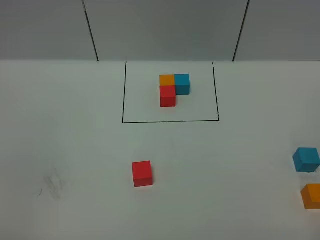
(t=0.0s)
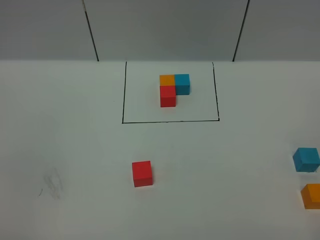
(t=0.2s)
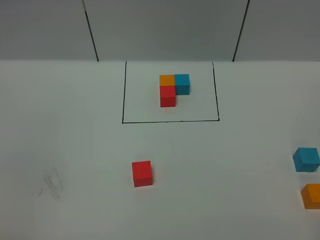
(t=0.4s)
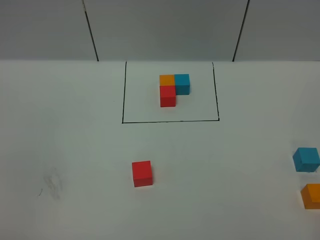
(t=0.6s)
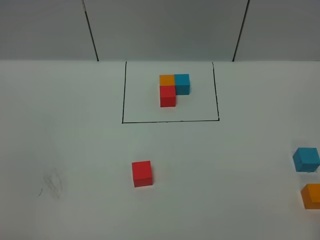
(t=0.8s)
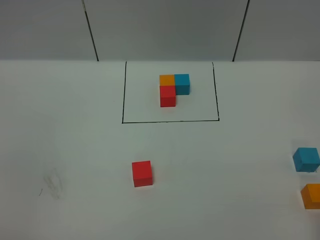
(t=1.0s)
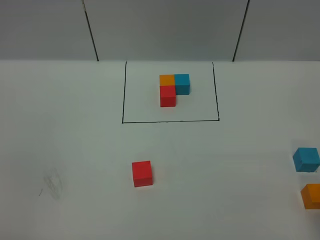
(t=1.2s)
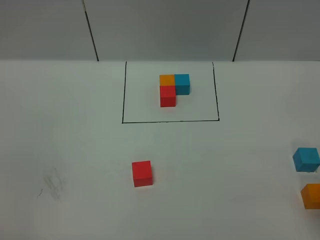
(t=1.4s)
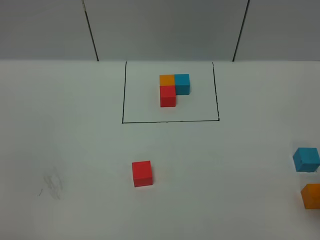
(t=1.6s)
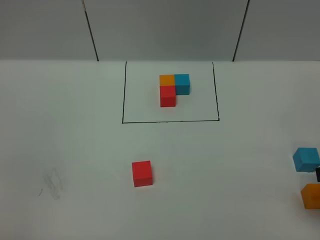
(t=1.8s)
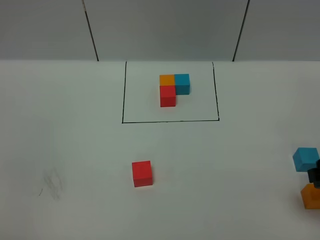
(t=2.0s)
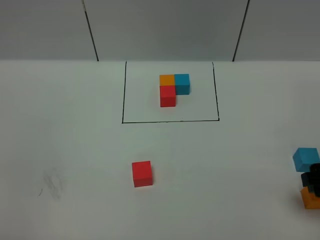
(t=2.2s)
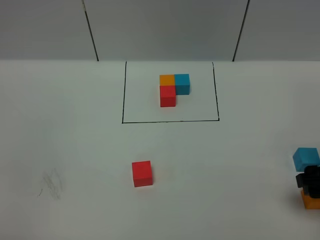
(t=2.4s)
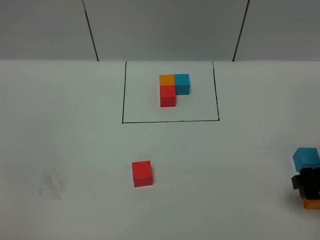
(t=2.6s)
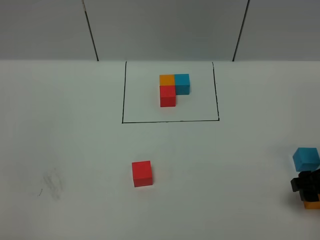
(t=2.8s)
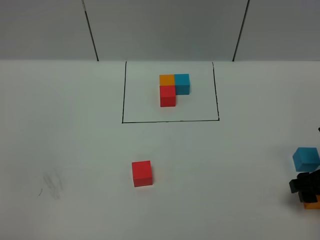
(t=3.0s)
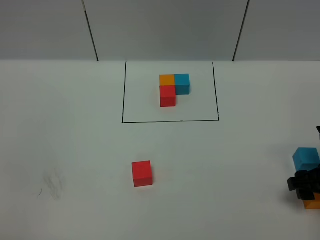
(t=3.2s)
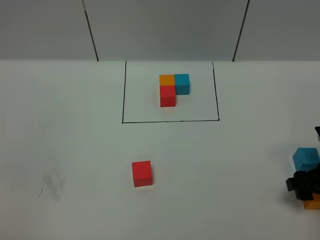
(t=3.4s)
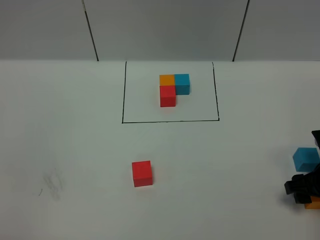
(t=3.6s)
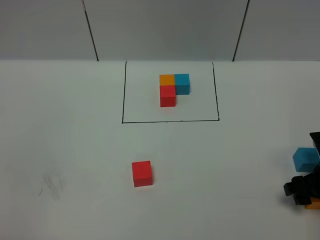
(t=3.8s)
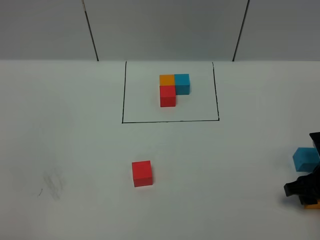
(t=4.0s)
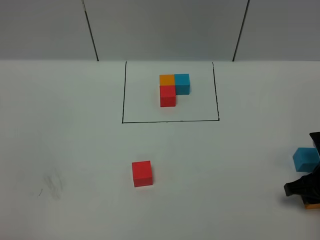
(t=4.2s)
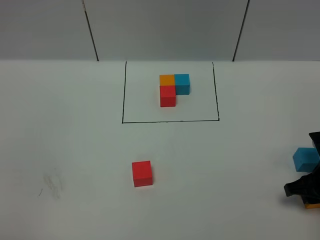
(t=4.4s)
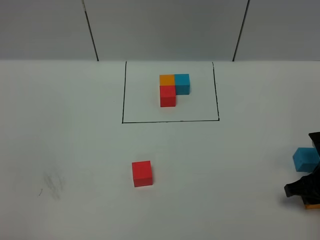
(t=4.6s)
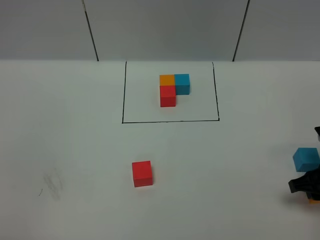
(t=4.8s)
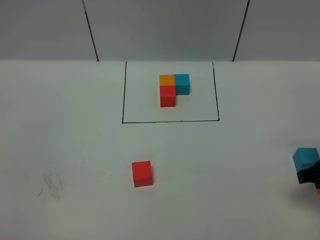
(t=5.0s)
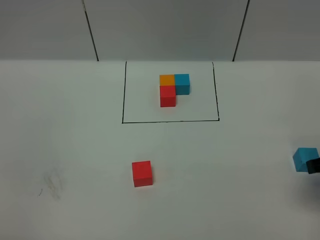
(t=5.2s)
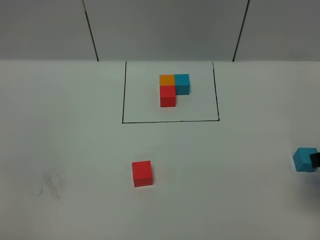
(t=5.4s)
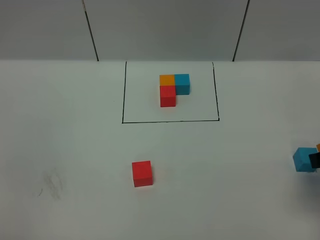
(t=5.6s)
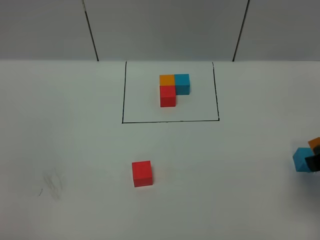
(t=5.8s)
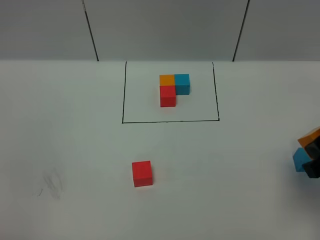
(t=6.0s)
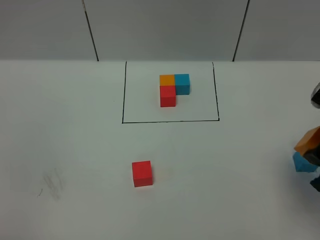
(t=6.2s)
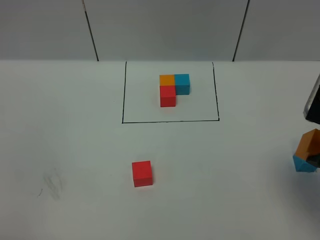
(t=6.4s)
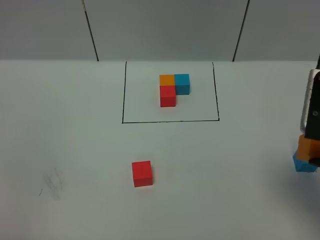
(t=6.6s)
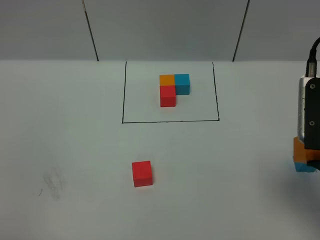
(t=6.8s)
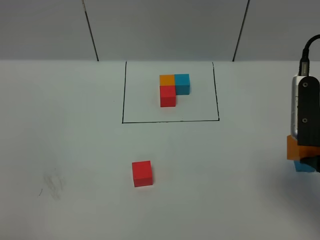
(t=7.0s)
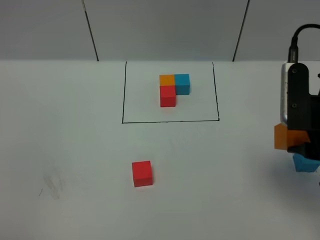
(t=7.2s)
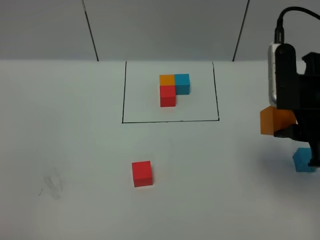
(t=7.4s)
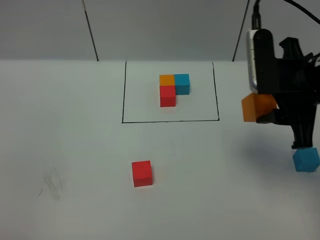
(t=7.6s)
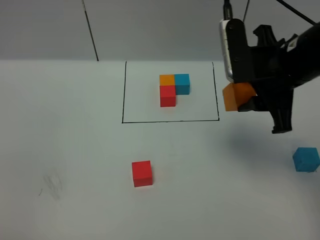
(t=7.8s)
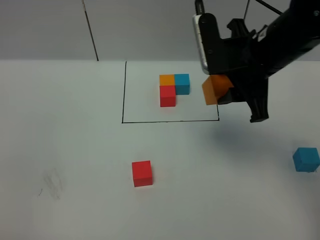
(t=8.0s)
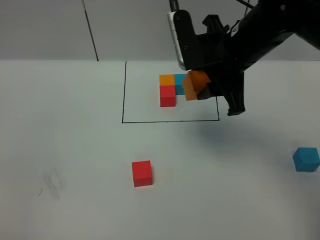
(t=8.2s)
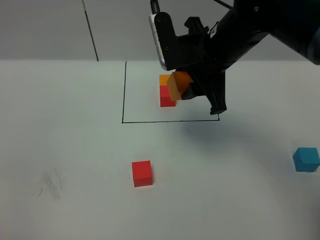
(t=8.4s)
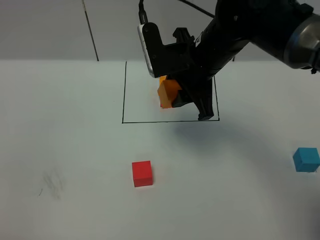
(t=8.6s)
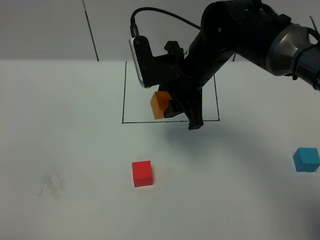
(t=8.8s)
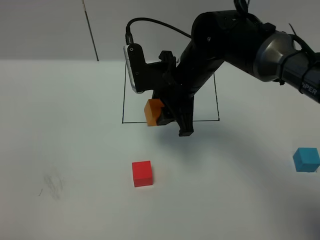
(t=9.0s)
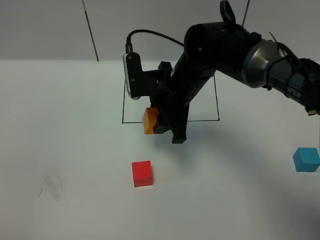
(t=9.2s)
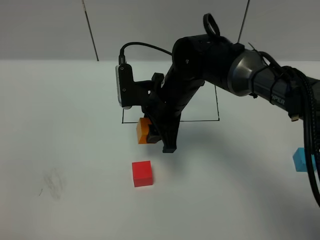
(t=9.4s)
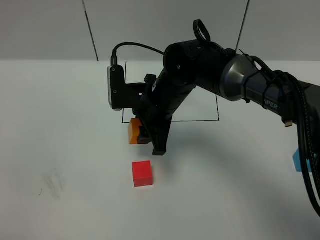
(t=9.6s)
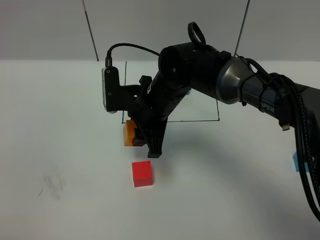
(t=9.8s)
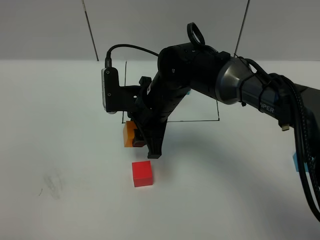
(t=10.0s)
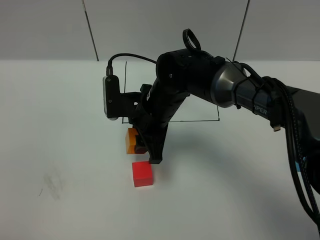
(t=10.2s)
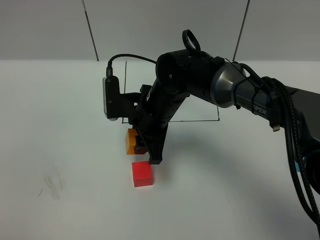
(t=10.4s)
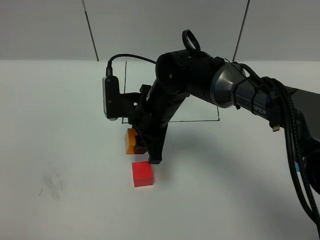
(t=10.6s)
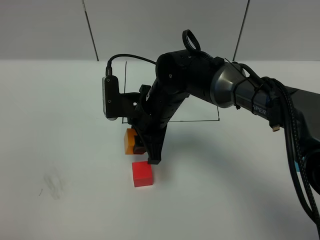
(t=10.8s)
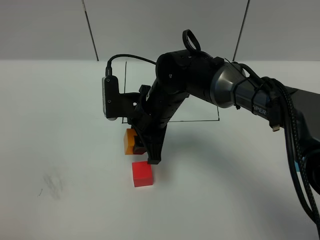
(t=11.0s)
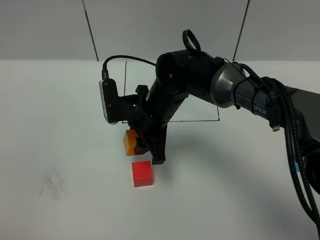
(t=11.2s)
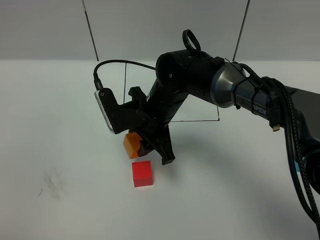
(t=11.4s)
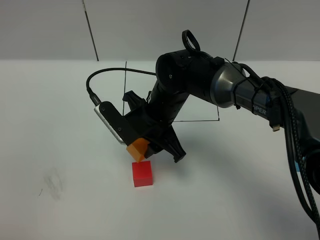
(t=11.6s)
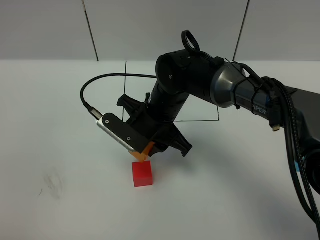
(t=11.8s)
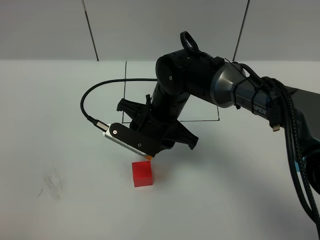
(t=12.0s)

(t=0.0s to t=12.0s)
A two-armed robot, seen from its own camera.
Task of the whole recording: According to the building block template in front, assemble the scattered blocks together.
t=1.6s - t=3.0s: The right gripper moves downward and forward, roughly 15 cm.
t=4.4s - t=6.0s: The right gripper is displaced upward by some 20 cm.
t=6.0s - t=7.6s: The right gripper shifts approximately 10 cm forward and to the left.
t=7.6s - t=9.0s: The right gripper moves to the left, forward and downward, some 20 cm.
t=9.0s - t=10.4s: The right gripper moves downward, roughly 5 cm.

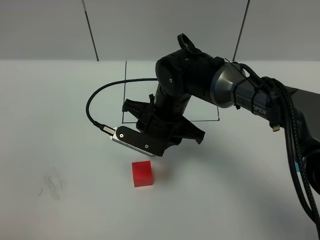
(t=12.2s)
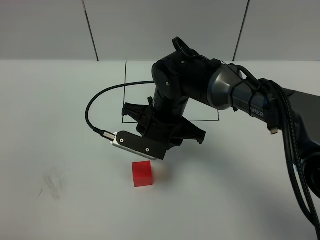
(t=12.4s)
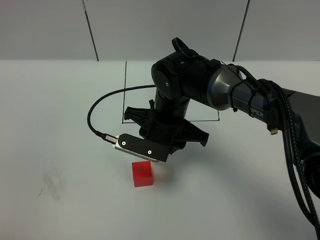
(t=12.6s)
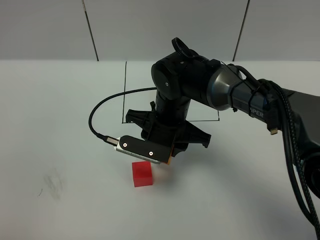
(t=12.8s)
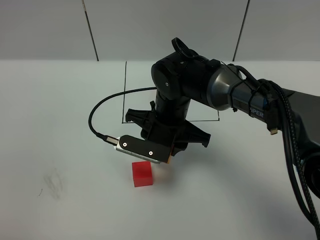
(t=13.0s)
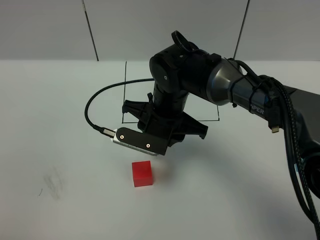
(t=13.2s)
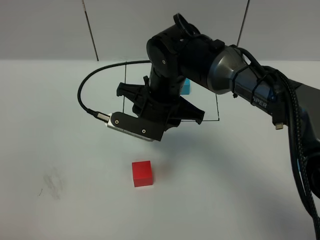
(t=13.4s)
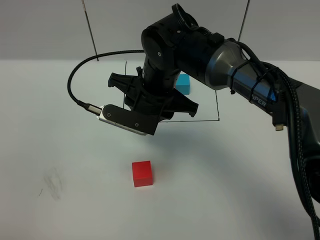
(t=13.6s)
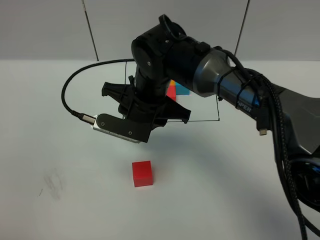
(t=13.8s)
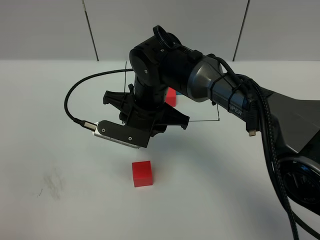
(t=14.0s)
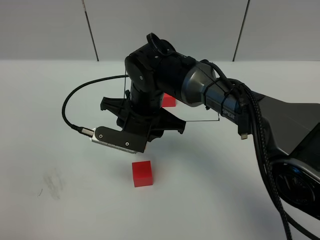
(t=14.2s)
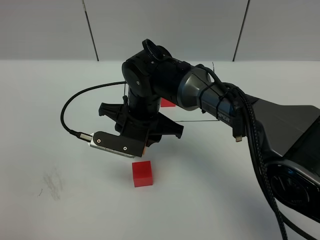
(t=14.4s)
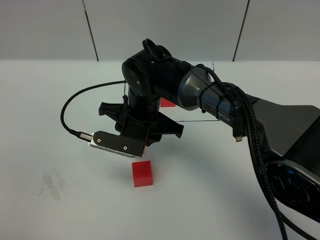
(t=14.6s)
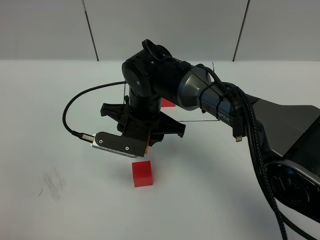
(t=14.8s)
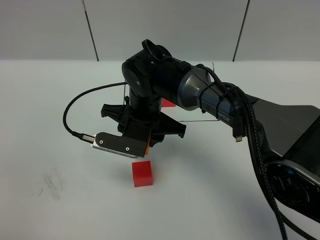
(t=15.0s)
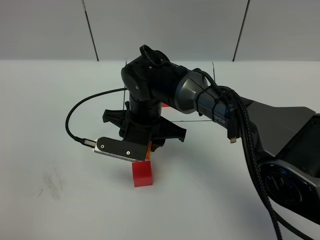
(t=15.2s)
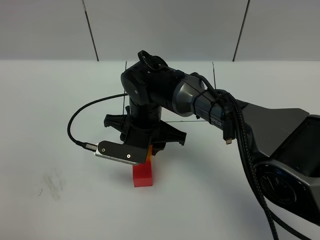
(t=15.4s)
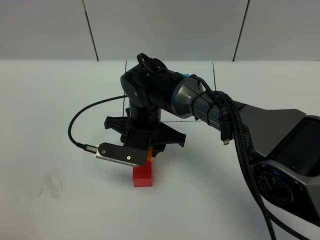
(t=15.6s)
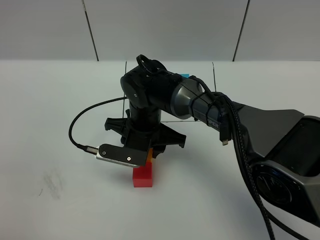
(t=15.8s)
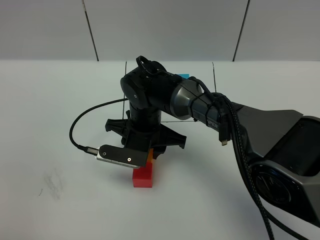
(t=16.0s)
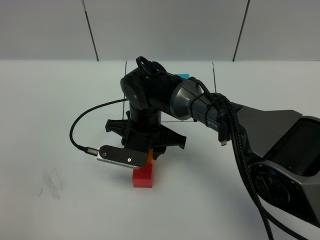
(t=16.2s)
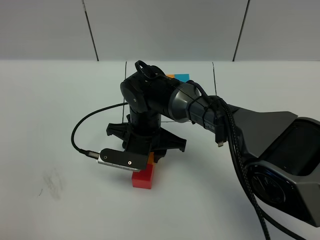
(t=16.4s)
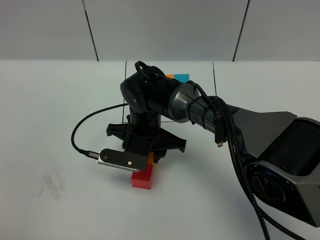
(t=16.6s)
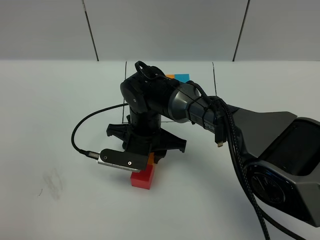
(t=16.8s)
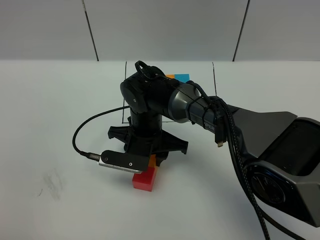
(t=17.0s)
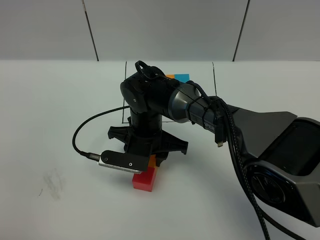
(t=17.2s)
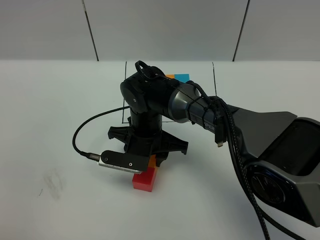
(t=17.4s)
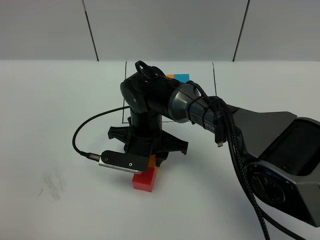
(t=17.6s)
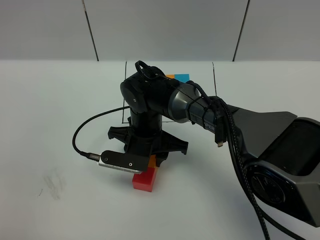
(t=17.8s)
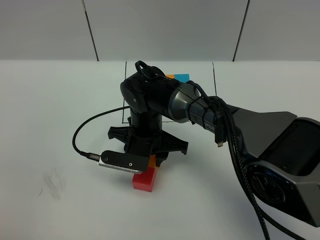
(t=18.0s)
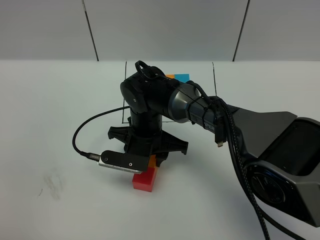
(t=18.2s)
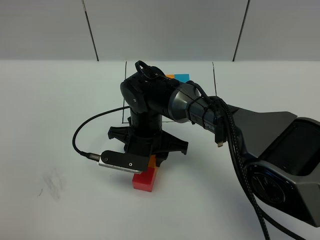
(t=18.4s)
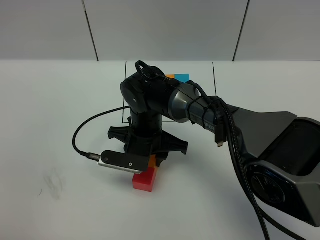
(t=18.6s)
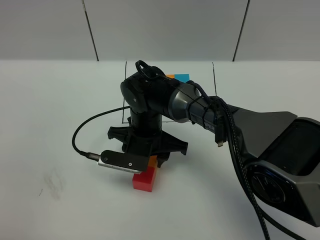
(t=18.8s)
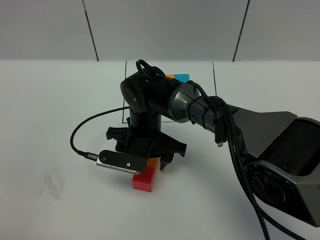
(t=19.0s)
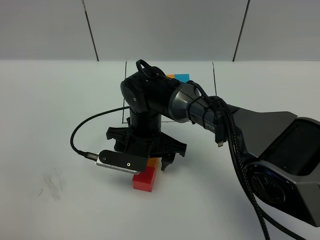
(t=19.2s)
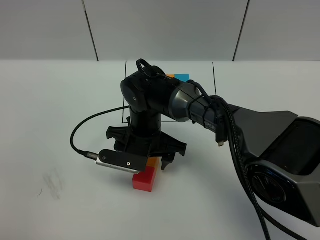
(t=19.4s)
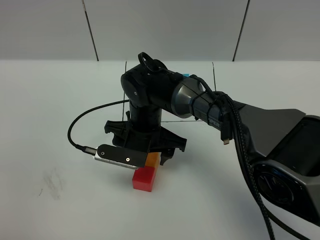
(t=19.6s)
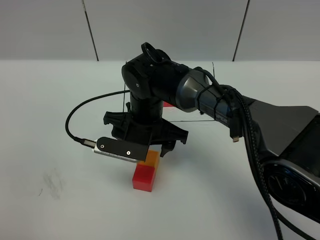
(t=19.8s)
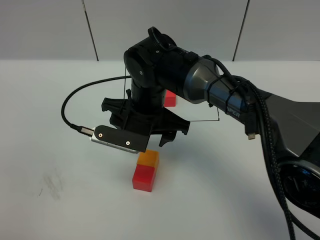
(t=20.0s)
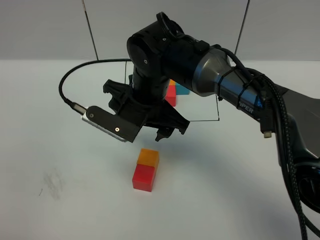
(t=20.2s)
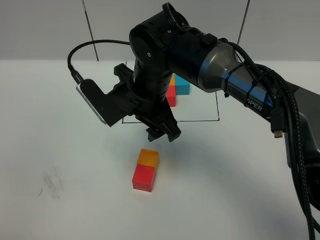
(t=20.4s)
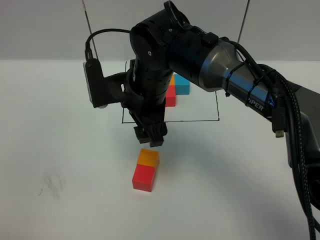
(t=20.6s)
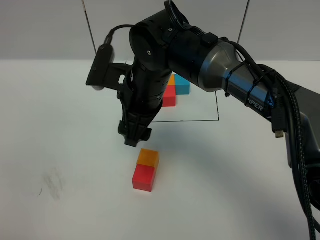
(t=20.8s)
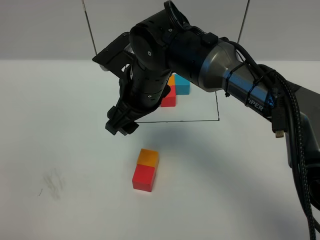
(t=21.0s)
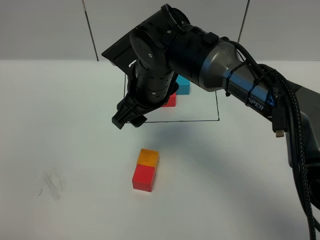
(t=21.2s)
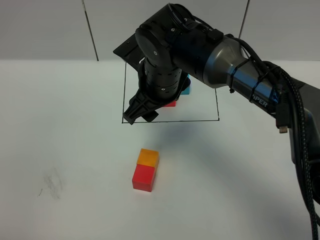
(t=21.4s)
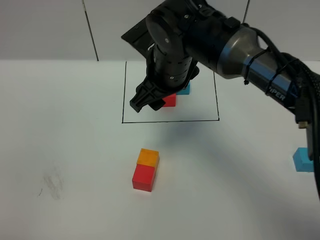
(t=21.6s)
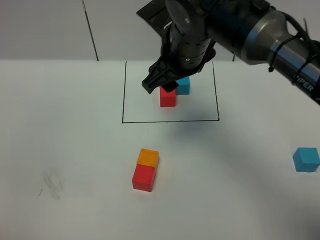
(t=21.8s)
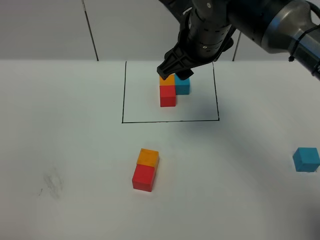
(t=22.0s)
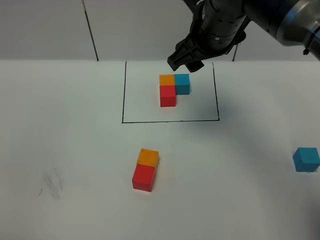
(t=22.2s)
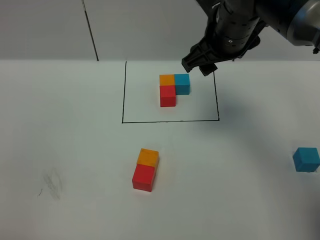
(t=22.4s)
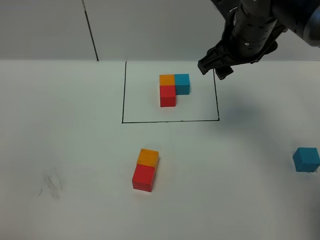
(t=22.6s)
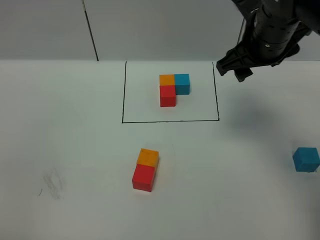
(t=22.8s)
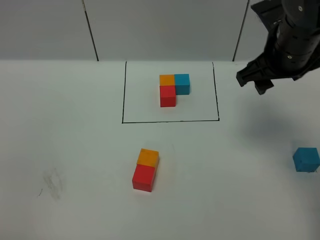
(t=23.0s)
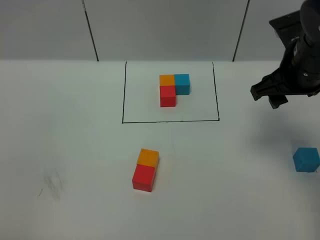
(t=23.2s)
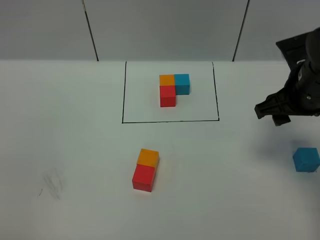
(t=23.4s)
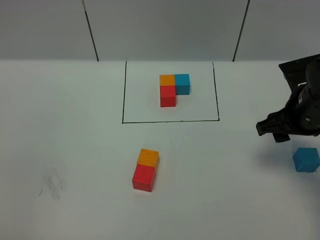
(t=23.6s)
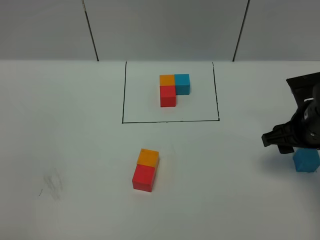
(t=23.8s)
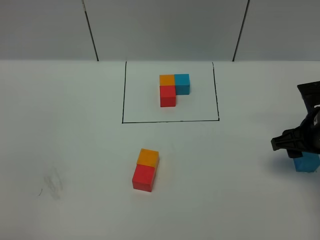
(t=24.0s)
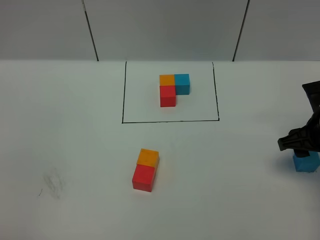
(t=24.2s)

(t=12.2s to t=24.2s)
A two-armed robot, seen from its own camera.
Task of the whole recording: According to the building block template in front, assemble the scattered blocks together.
Step, t=12.2s - t=20.0s: Put the orange cube in the front of the red cube.
t=12.2s - t=13.8s: The grippers stay close to where they were, moving slightly.
t=13.8s - t=15.2s: The right gripper goes some 5 cm downward.
t=15.2s - t=16.6s: The grippers move only a little.
t=16.6s - t=18.2s: Neither gripper changes place.
t=18.2s - t=19.8s: The right gripper opens up.
t=19.8s - t=21.2s: The right gripper goes approximately 5 cm upward.
t=21.2s - t=22.6s: The right gripper is displaced to the right by roughly 15 cm.
t=22.6s - t=24.2s: The right gripper moves to the right, downward and backward, about 20 cm.
